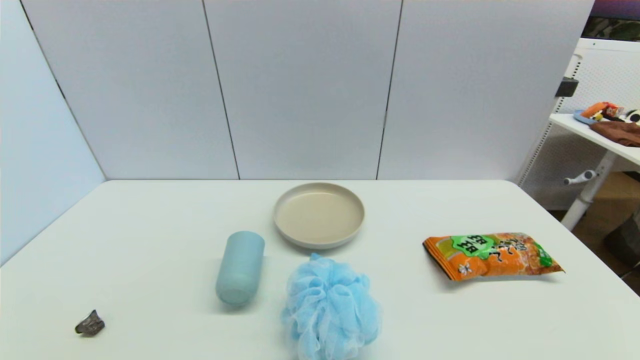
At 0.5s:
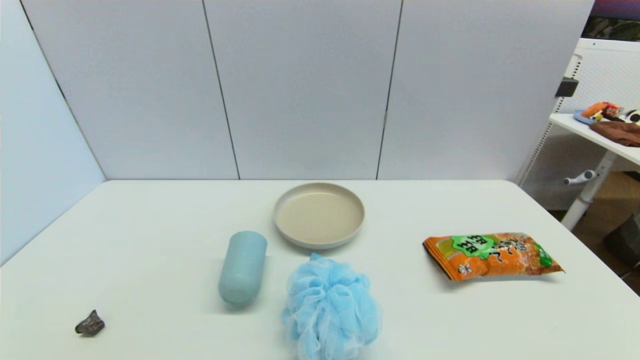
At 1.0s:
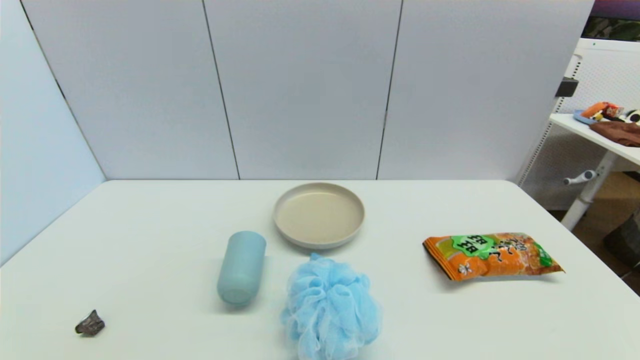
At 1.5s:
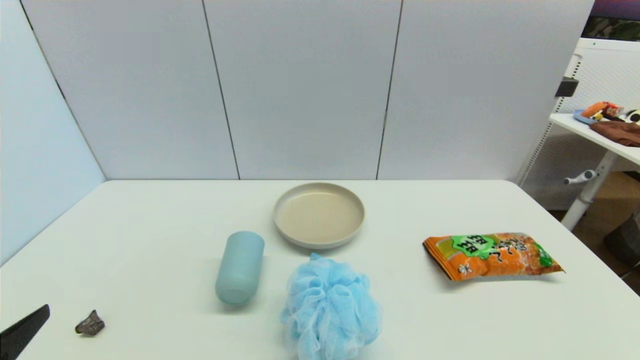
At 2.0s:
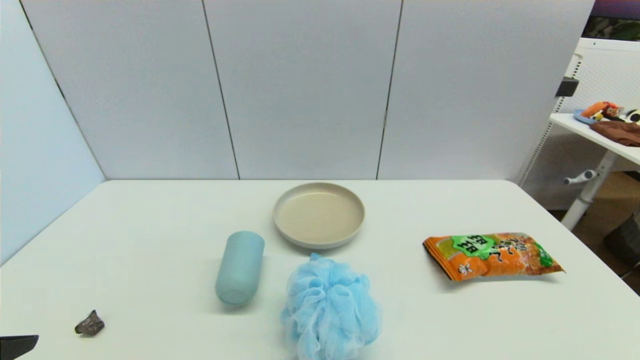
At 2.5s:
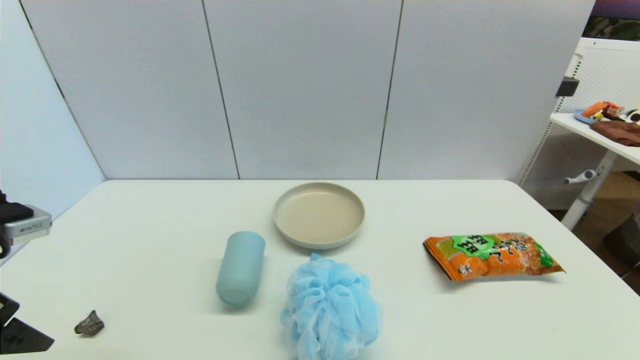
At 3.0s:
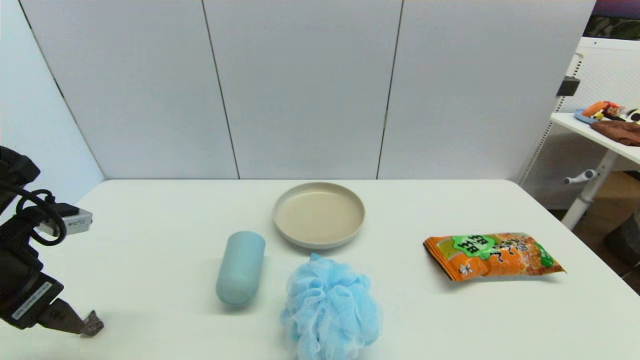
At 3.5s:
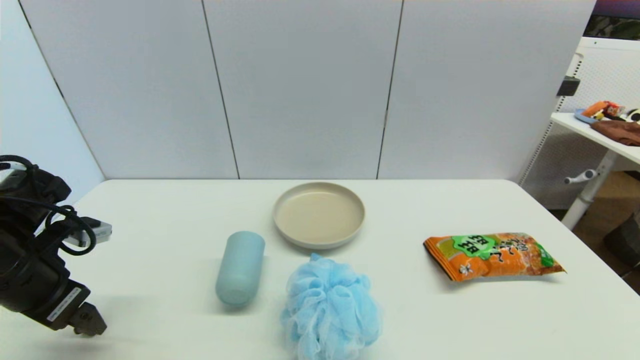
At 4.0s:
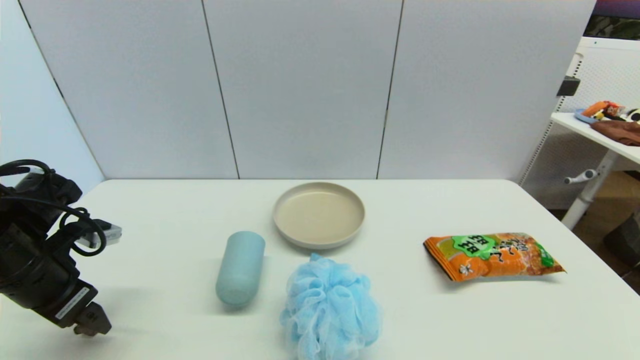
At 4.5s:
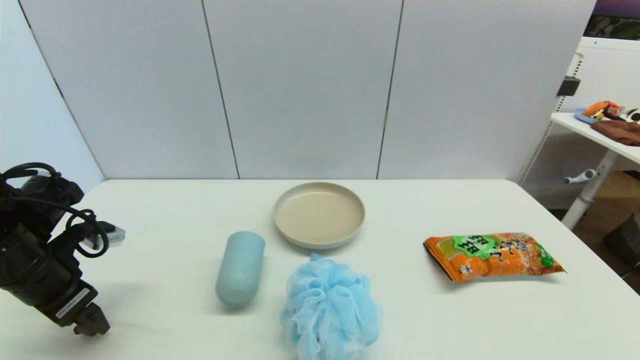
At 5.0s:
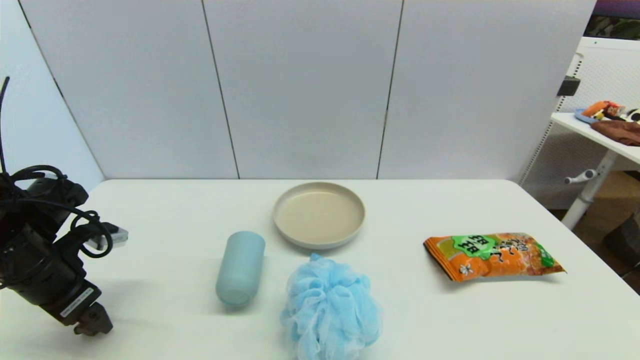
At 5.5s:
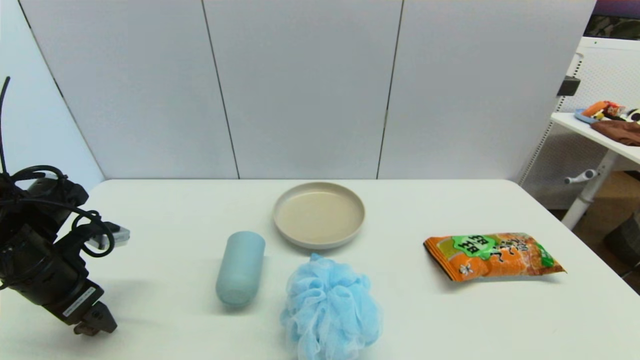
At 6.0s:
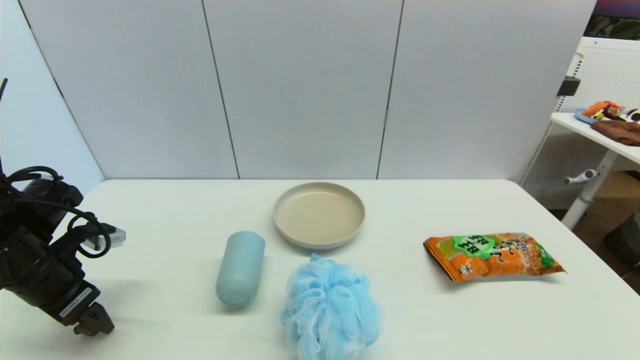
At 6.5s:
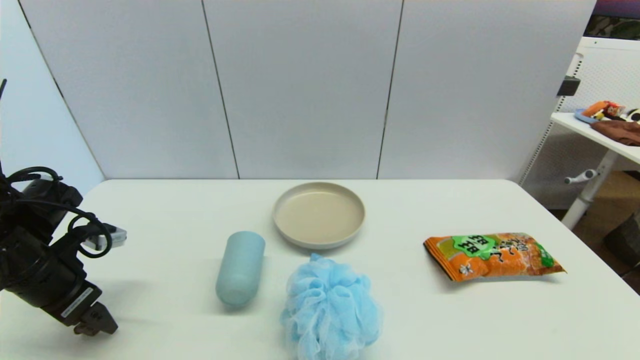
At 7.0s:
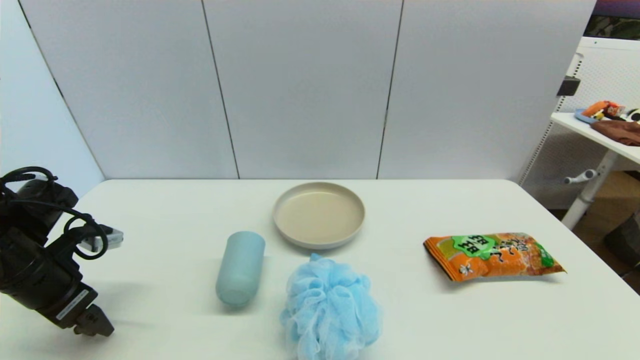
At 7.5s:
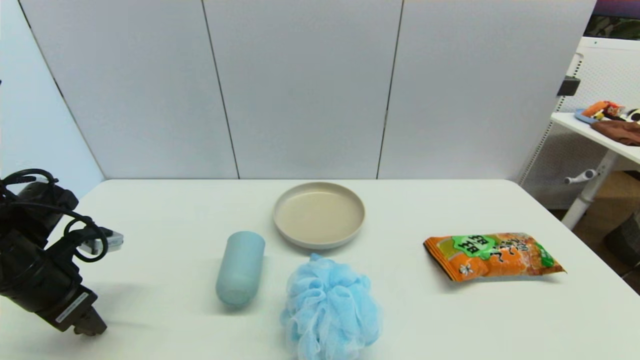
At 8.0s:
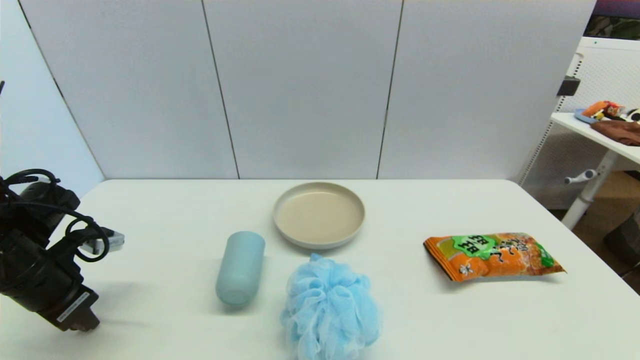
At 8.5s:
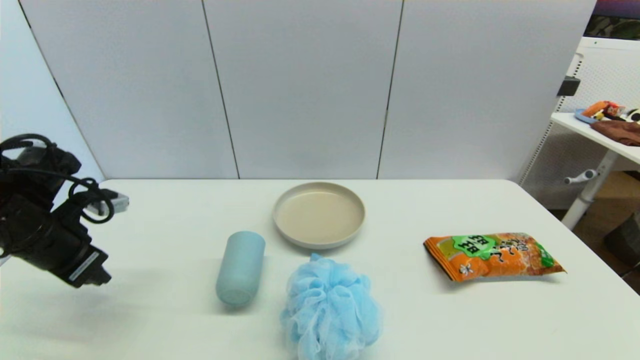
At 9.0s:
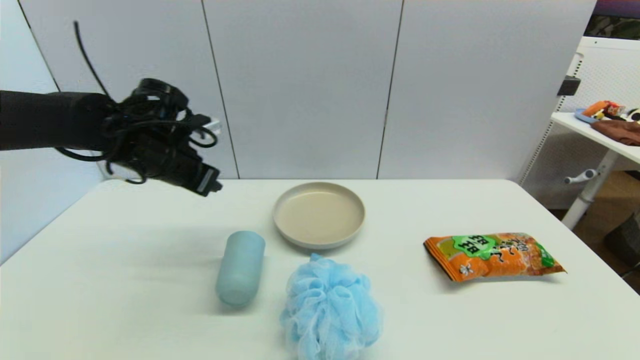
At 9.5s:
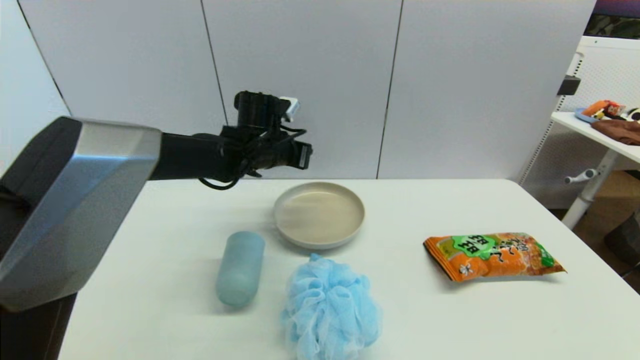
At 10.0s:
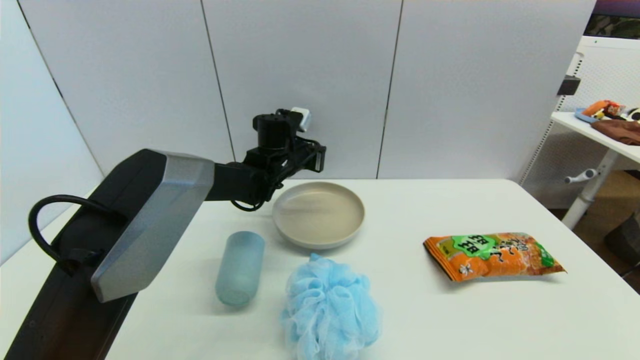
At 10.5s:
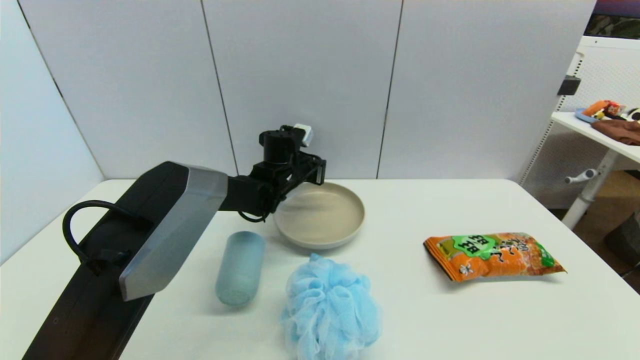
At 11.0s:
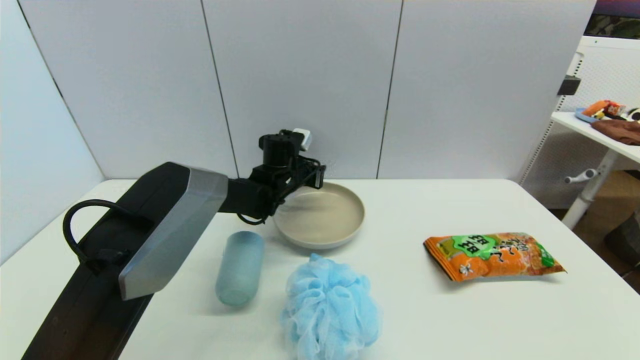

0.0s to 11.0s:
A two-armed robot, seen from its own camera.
Step, 1.5s to 8.0s: Grasp the coffee capsule with left gripper.
2.0s to 3.5s: The left gripper moves forward and downward, approximately 15 cm.
3.5s to 5.5s: The grippers make only small movements.
5.5s to 7.5s: The left gripper closes its fingers.
7.5s to 9.0s: The left gripper travels forward, to the right and upward by some 20 cm, and closes.
9.0s to 11.0s: The left gripper heads to the right, downward and forward, covering roughly 25 cm.

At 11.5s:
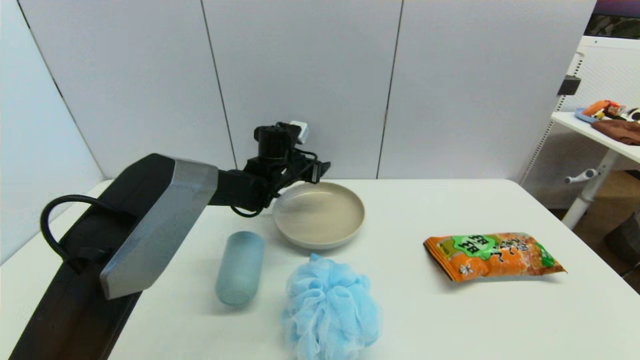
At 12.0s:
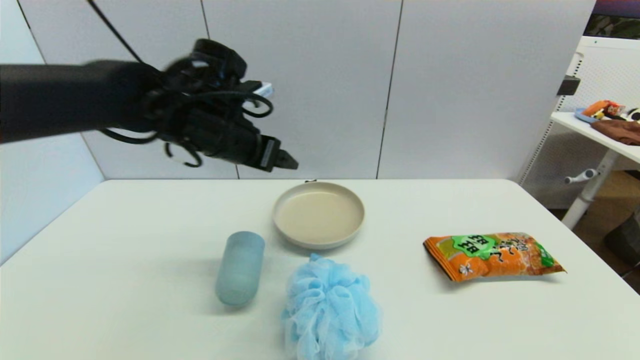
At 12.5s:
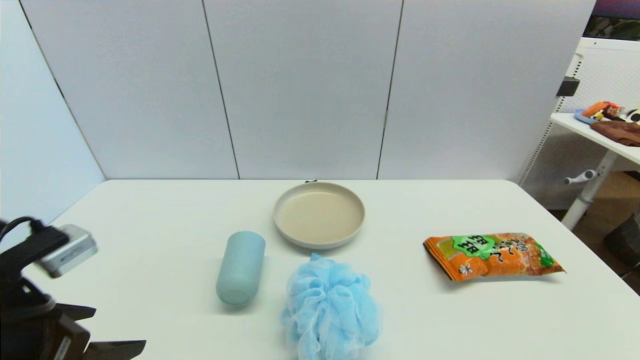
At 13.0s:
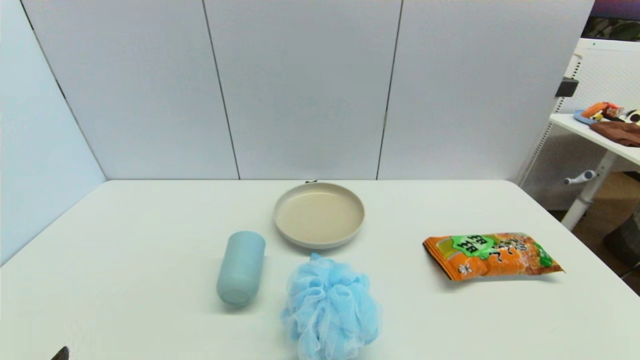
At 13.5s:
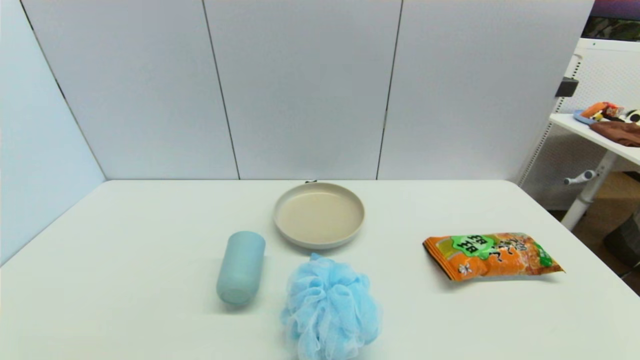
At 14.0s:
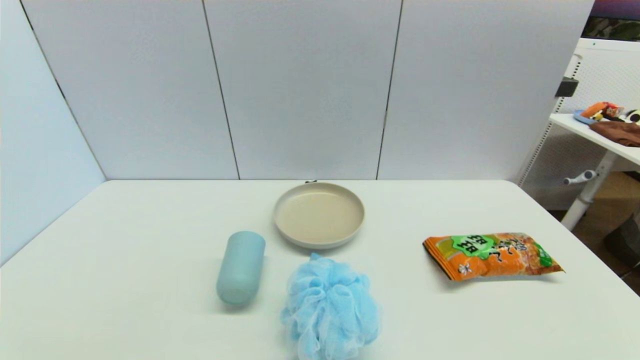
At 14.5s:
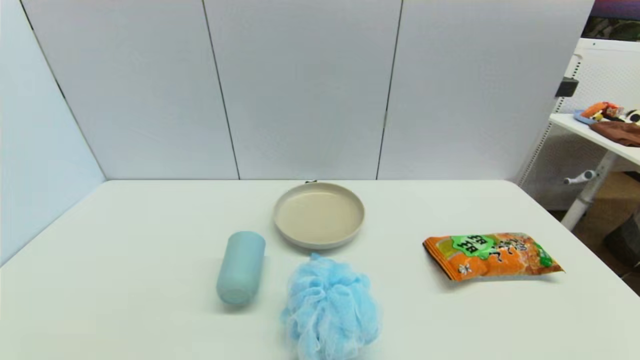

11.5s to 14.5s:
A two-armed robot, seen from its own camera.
11.5s to 13.0s: The left gripper shifts about 50 cm backward and to the left.
